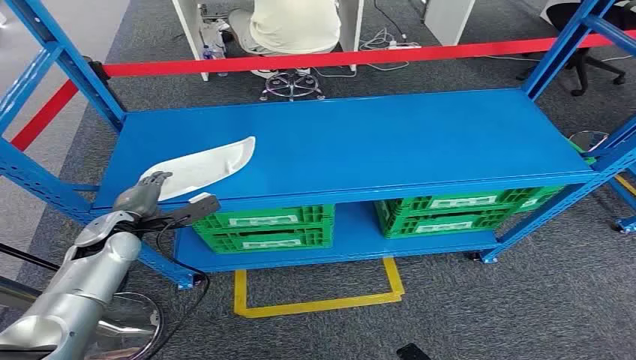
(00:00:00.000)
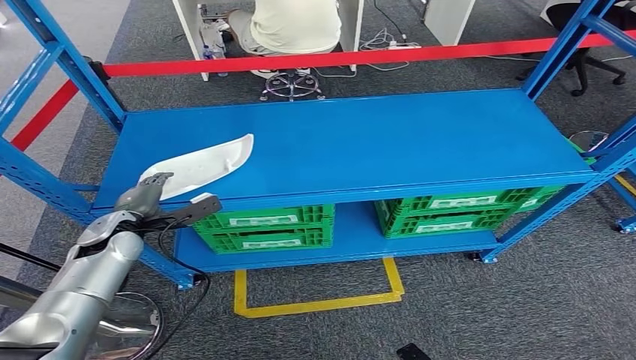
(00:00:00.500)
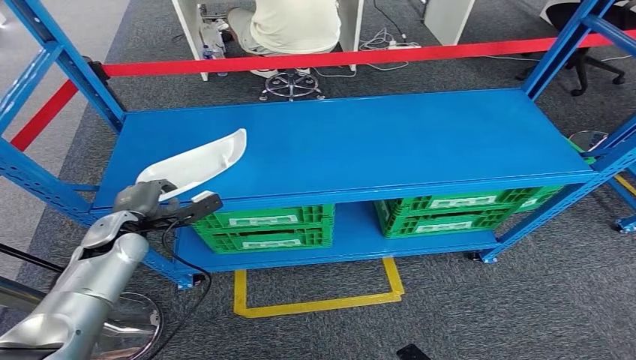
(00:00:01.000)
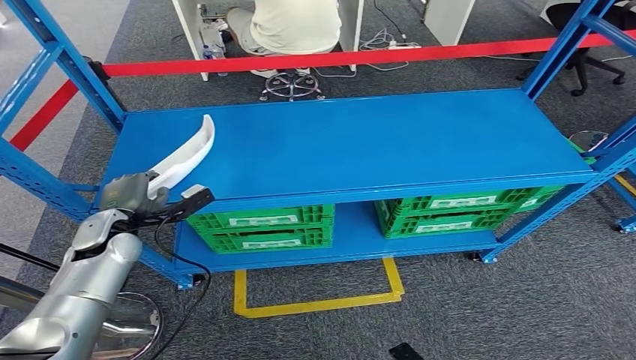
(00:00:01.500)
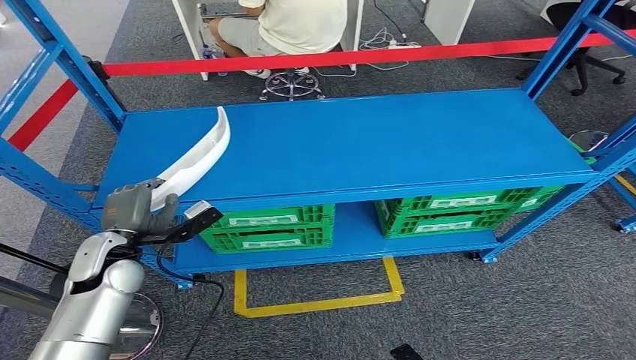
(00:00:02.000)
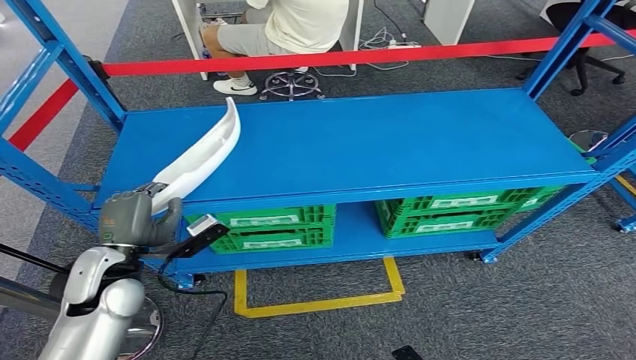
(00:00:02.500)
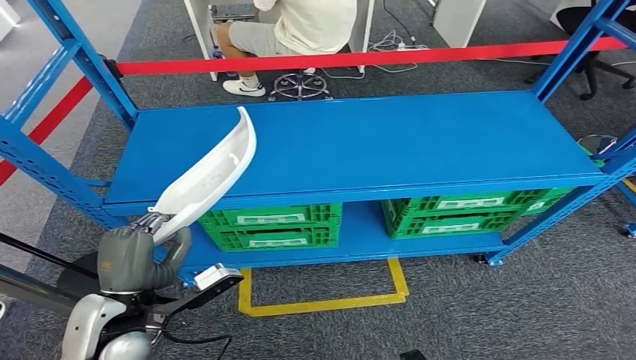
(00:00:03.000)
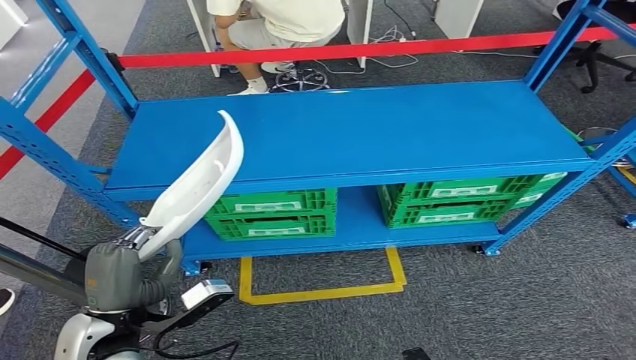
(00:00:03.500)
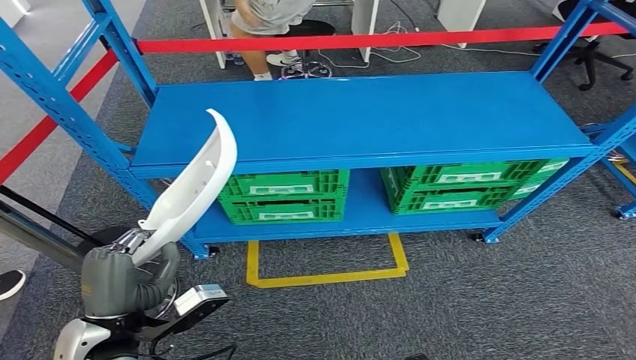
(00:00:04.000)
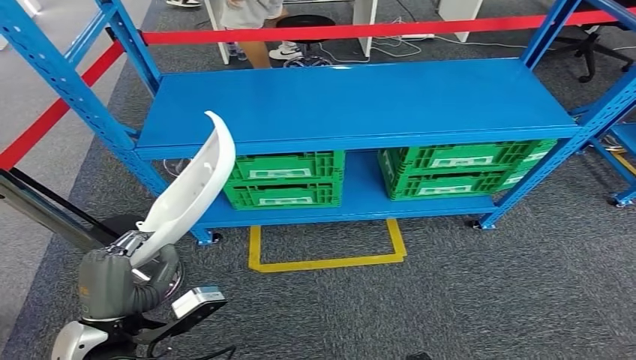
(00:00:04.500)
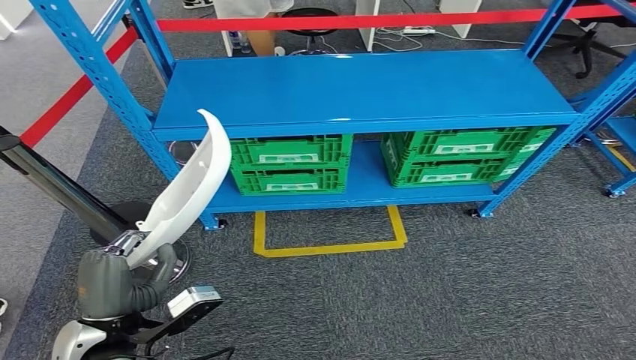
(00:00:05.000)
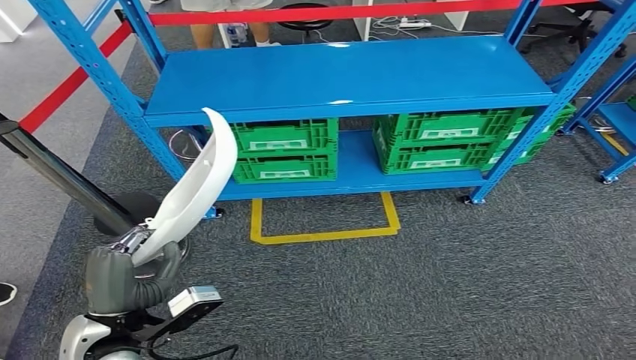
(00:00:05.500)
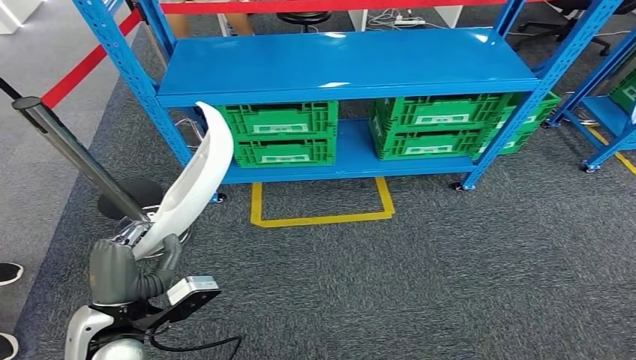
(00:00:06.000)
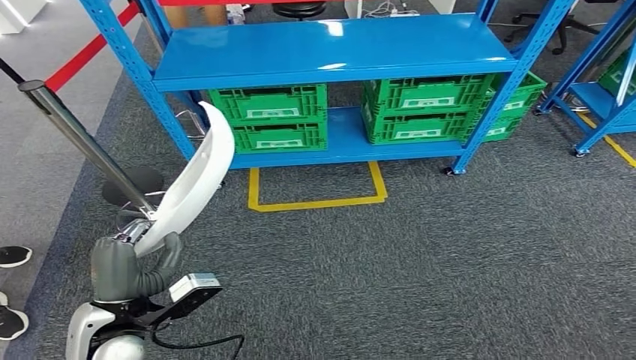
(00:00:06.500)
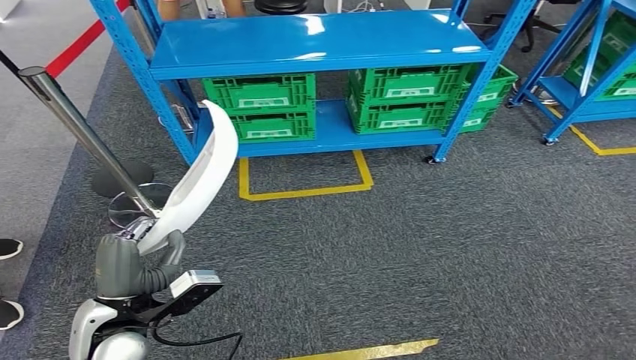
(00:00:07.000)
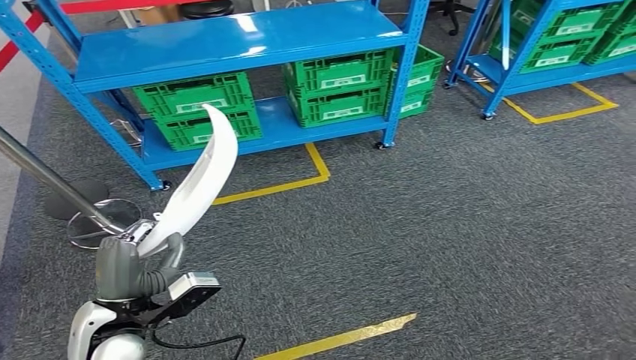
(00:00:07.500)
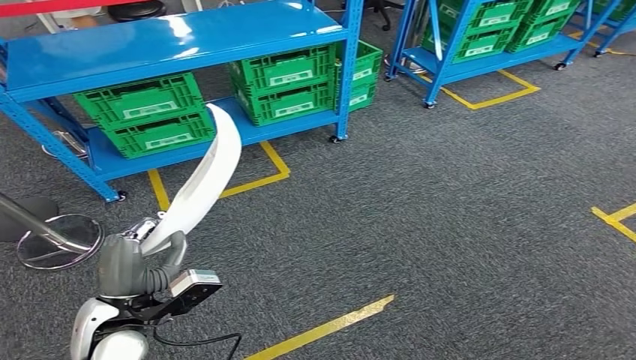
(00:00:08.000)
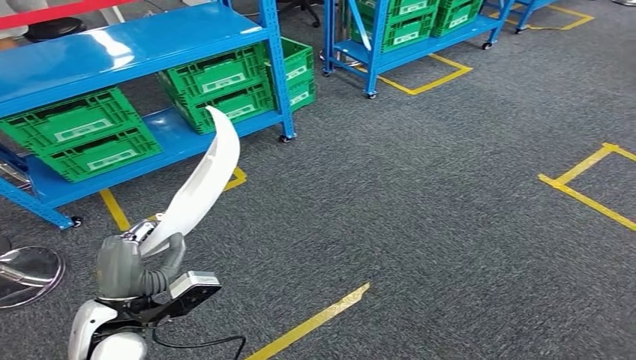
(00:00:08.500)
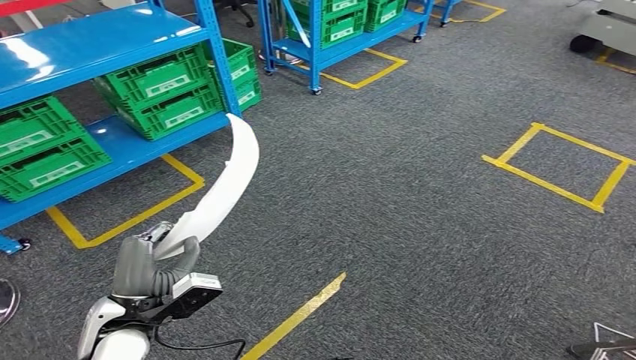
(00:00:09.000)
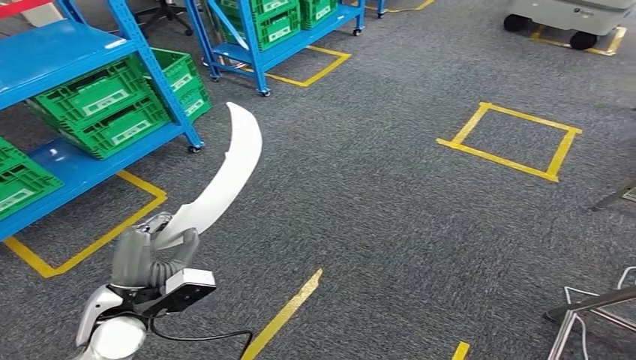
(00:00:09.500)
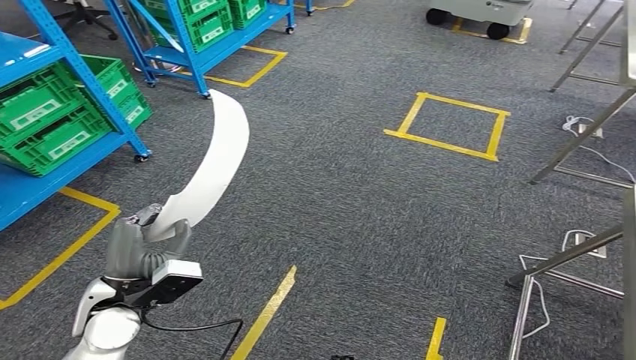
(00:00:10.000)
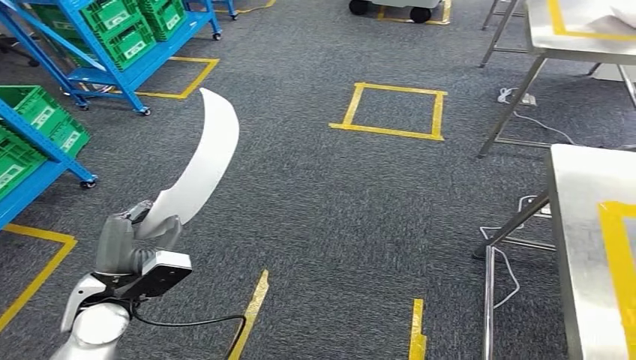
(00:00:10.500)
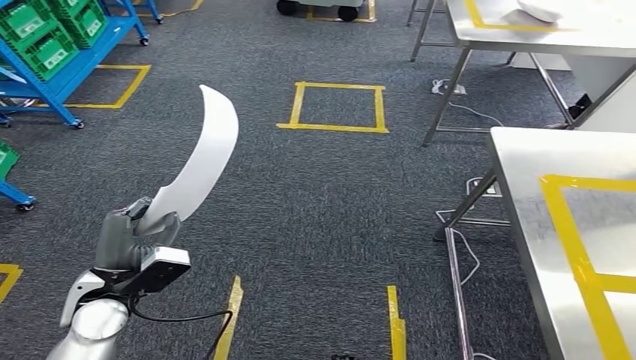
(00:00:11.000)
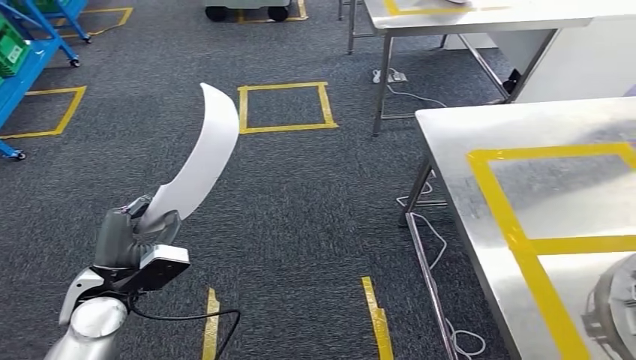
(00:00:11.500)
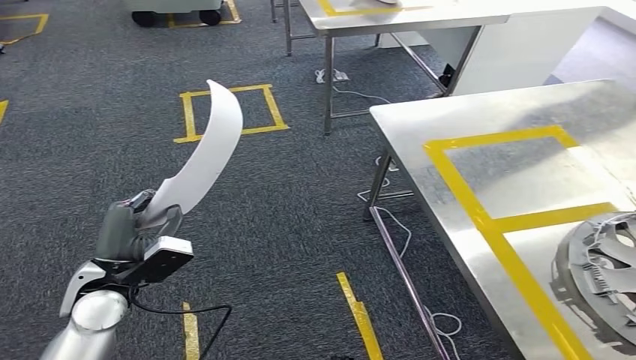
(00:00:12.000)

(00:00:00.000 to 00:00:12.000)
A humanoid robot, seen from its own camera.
Step, 00:00:00.000 - 00:00:03.500: Pick up the small component from the shelf.

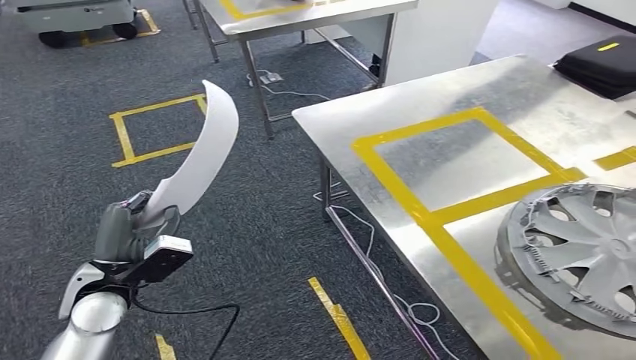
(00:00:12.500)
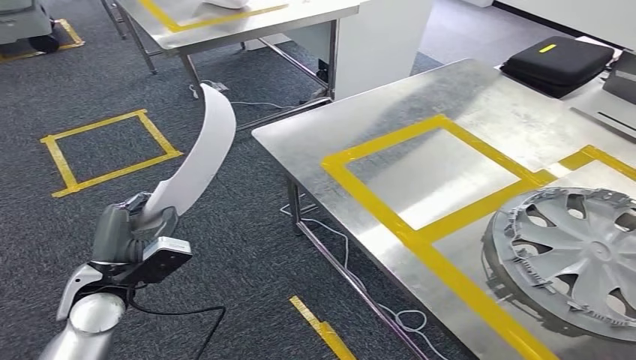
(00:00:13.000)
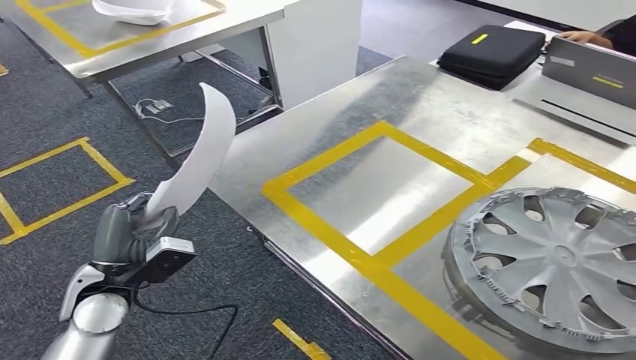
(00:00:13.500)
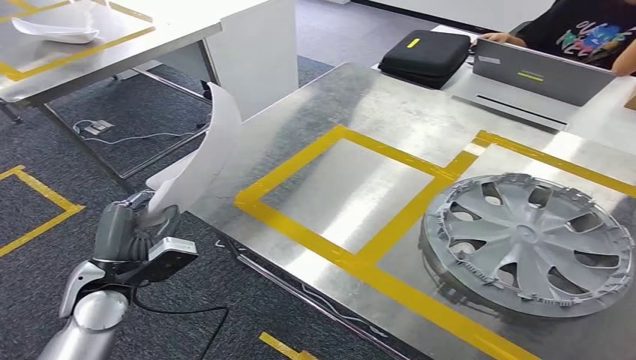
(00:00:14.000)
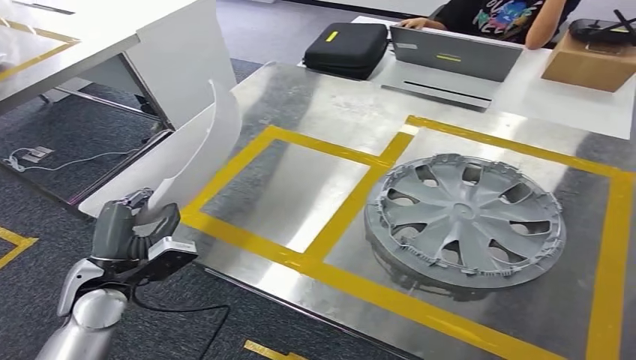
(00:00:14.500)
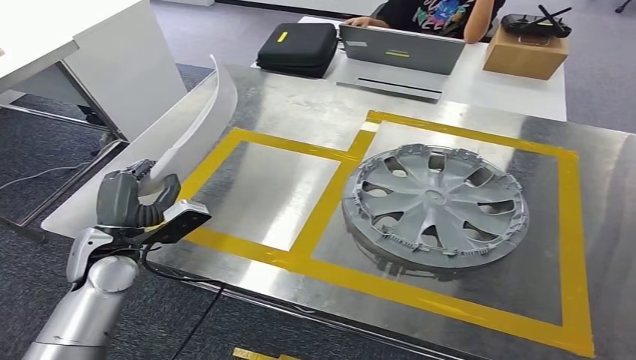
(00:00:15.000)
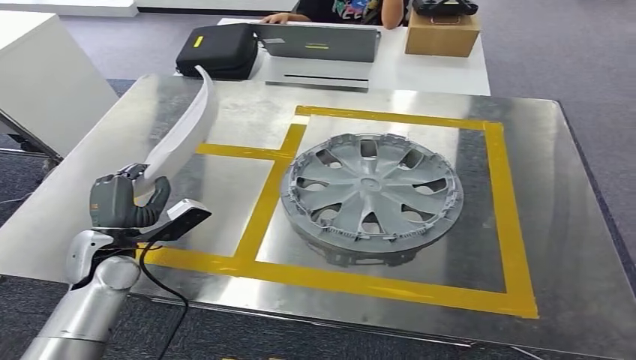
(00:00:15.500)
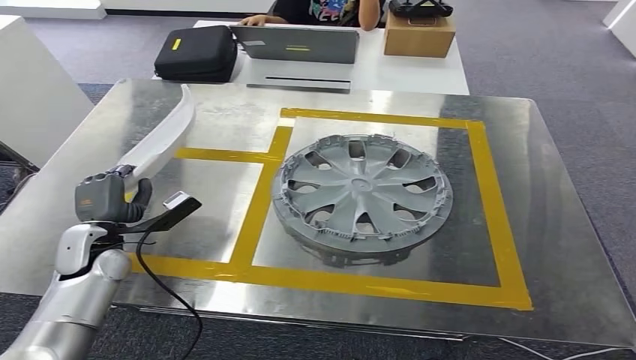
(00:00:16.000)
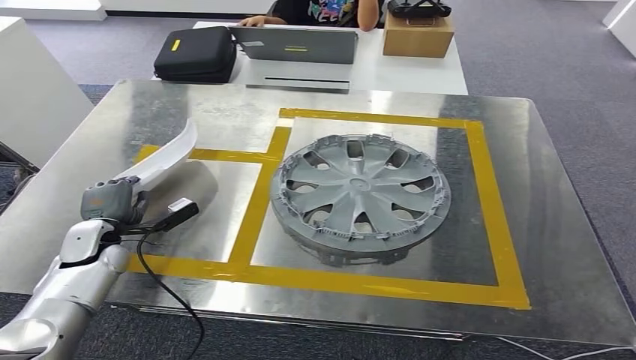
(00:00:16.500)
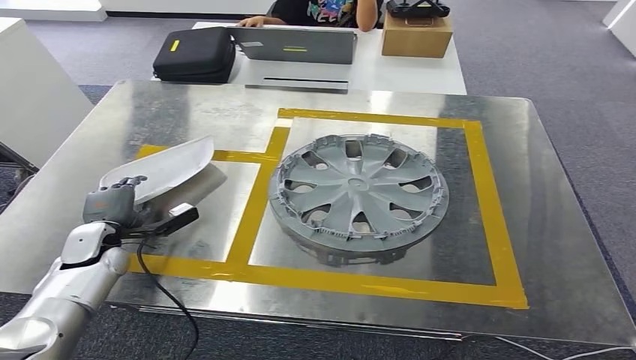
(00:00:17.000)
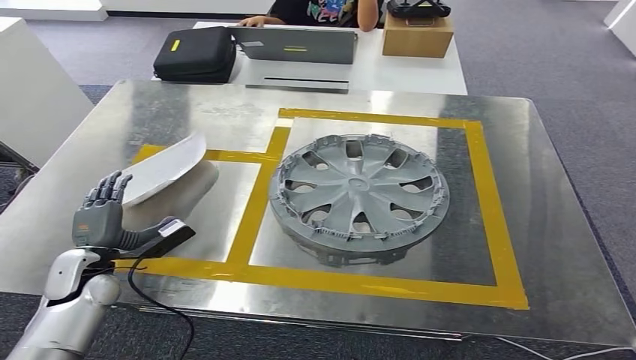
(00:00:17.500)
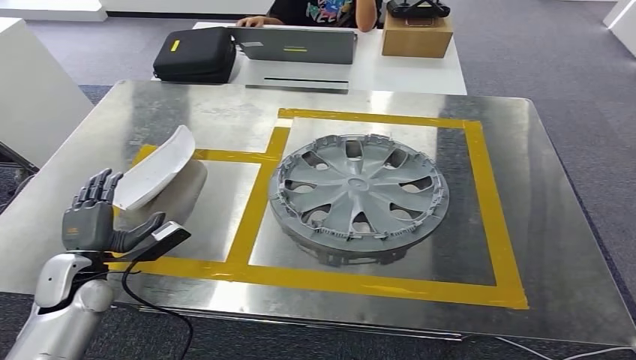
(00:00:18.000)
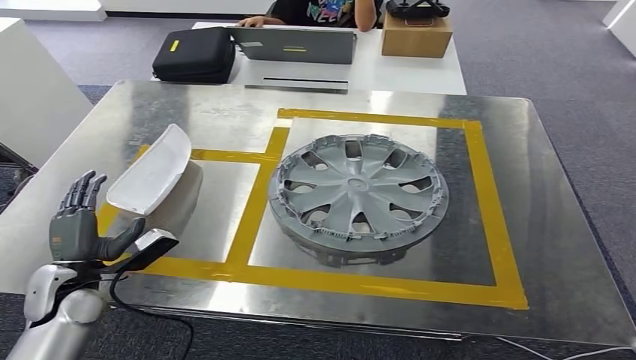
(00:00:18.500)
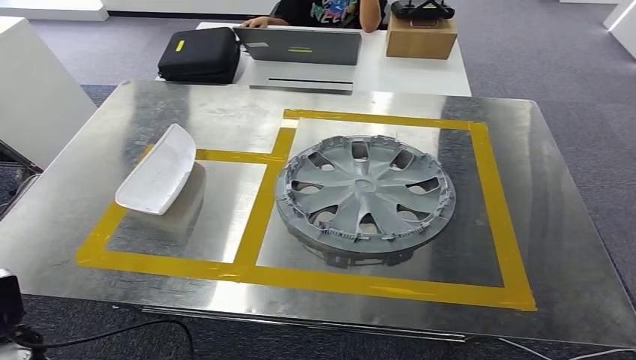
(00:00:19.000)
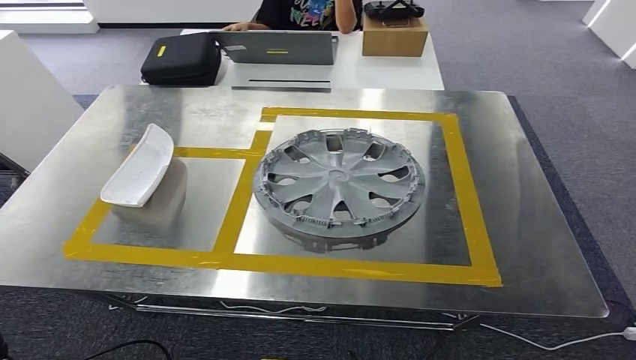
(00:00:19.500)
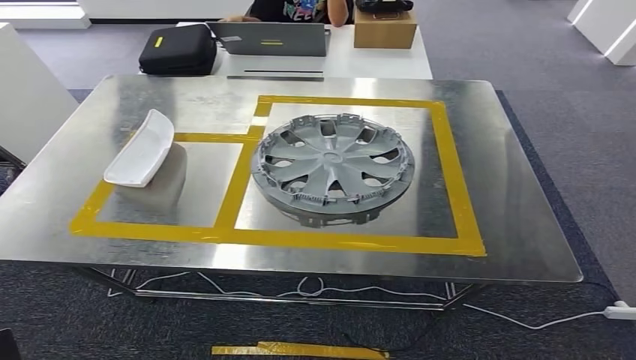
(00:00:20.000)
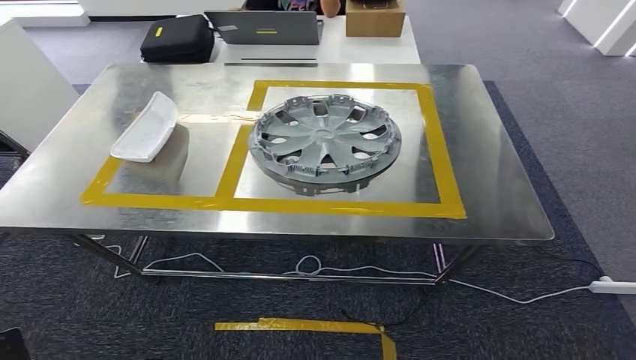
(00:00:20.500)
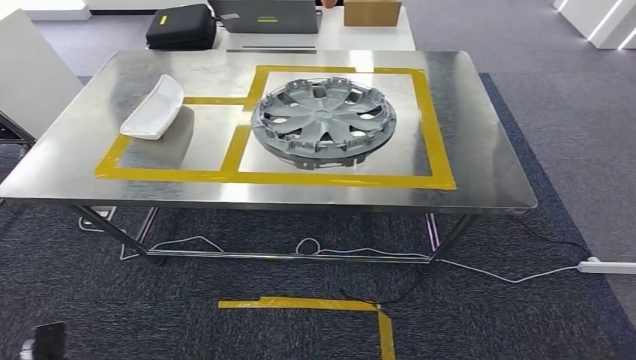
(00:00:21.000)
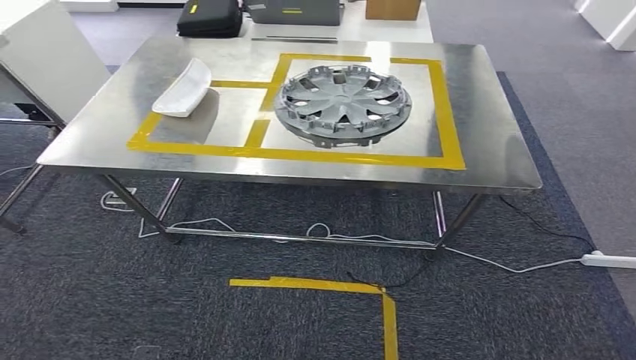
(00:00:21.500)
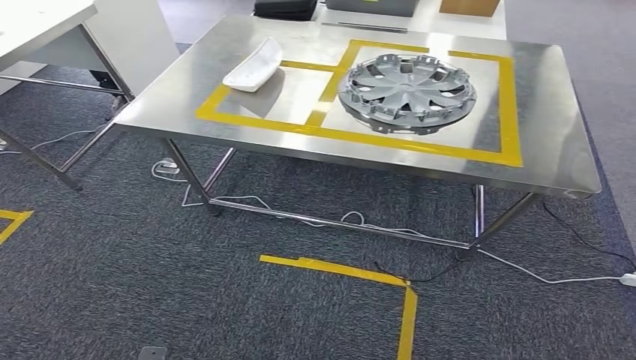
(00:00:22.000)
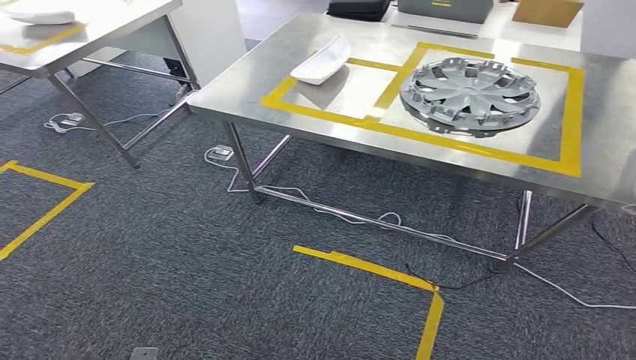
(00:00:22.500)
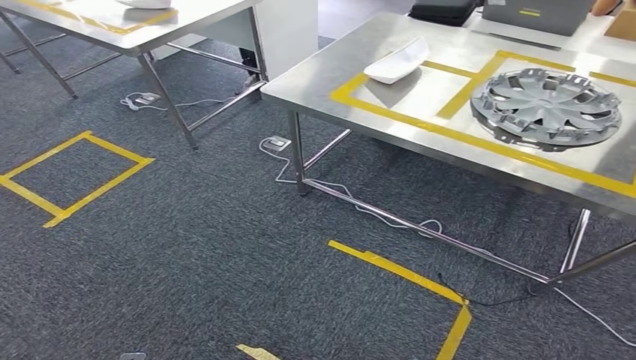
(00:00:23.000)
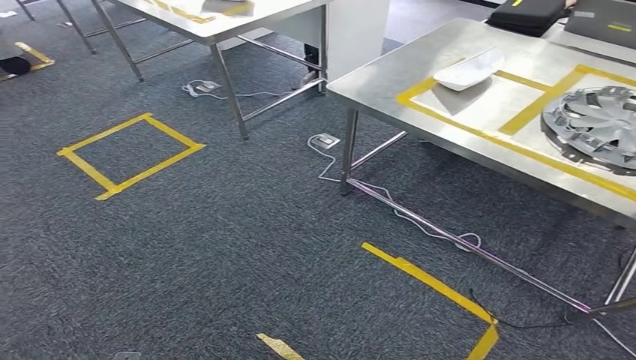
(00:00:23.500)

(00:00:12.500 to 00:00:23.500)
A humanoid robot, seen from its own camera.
Step, 00:00:12.500 - 00:00:14.500: Move the small component to the workbench.
Step, 00:00:15.500 - 00:00:18.500: Insert the small component into the corresponding slot on the workbench.
00:00:16.000 - 00:00:18.000: The left hand heads backward, covering roughly 5 cm.
